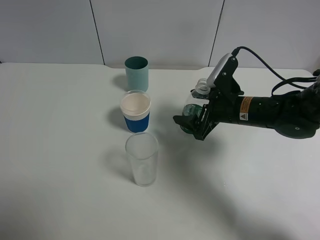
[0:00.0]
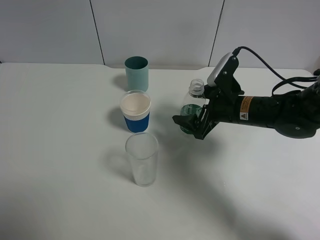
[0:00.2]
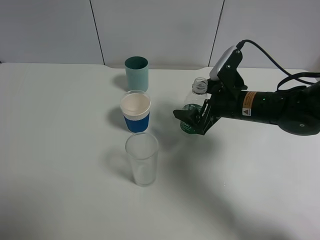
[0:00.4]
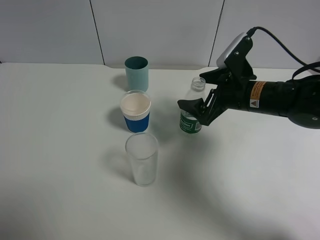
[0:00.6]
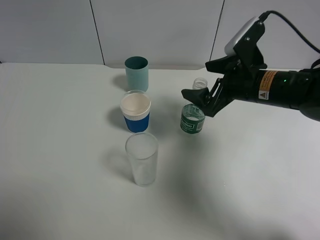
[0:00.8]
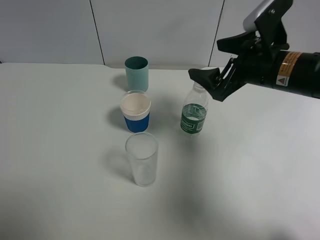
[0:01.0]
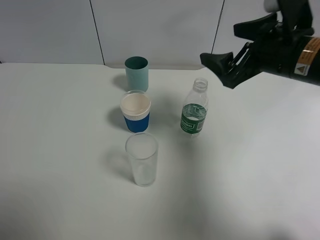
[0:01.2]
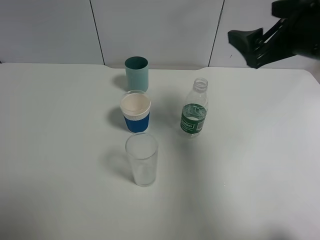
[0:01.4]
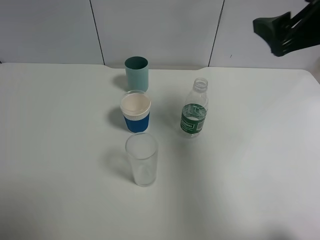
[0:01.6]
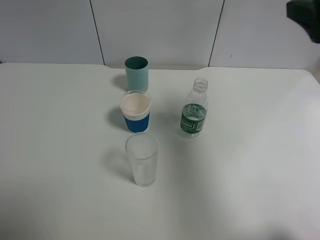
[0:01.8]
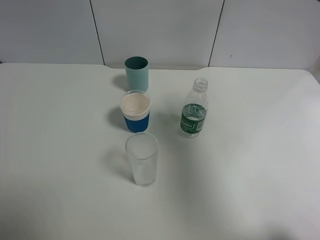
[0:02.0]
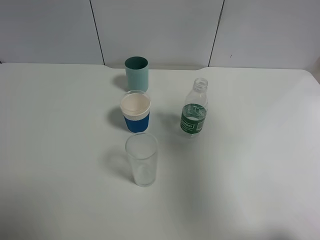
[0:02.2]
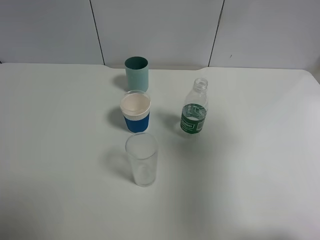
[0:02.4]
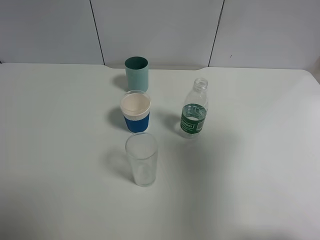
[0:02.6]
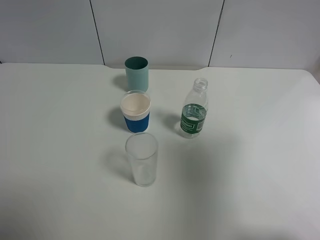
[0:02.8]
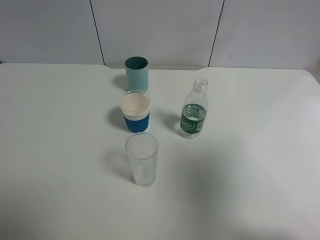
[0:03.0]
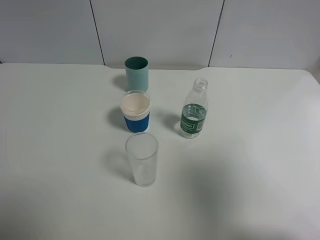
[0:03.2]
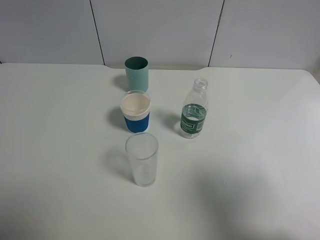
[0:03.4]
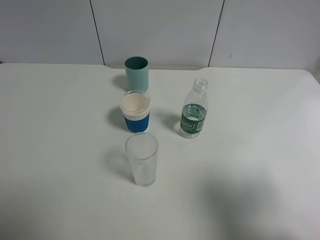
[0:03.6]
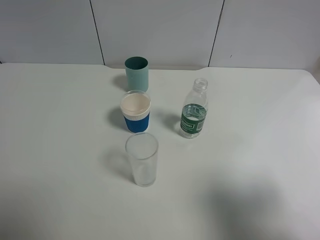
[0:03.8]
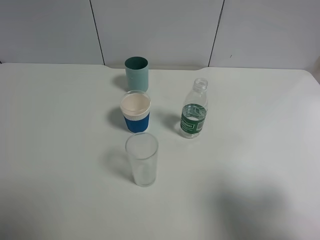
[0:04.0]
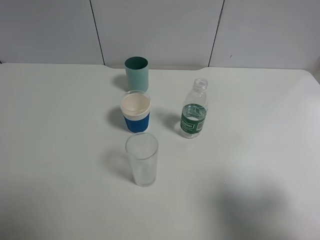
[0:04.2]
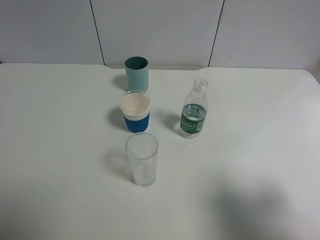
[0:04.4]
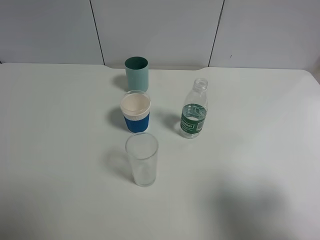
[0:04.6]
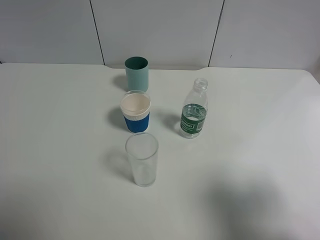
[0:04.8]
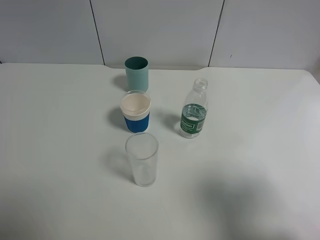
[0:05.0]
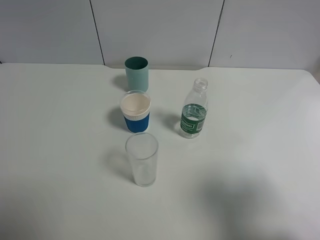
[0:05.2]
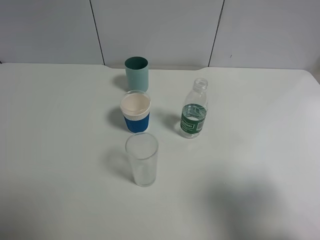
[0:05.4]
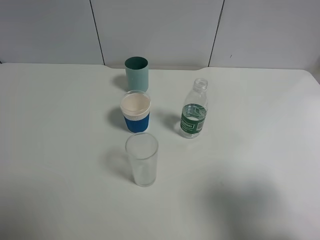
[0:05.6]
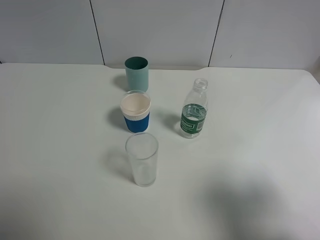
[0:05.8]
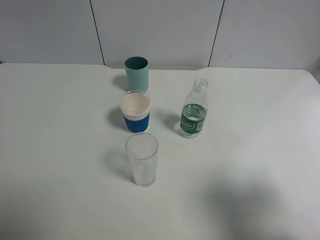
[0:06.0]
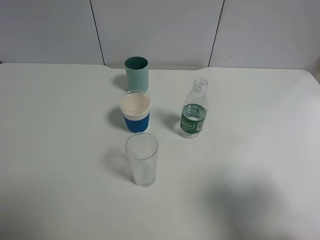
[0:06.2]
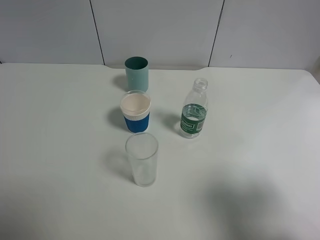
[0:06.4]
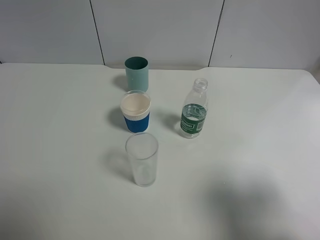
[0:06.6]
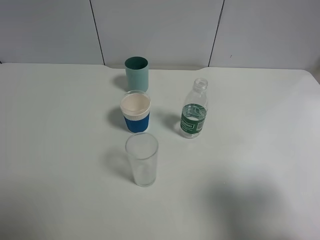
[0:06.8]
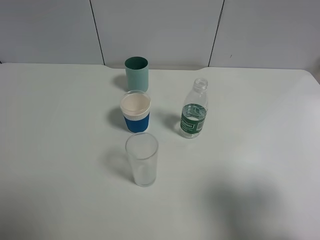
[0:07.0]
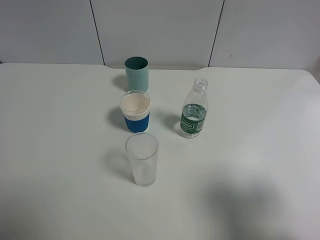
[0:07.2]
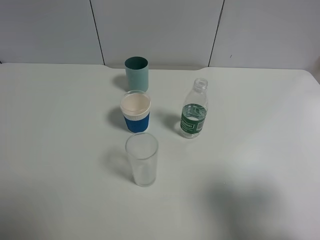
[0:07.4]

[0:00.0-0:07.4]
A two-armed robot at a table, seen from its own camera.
Task of the whole recording: use a gripper to hold the bottle of the drink and pour it into a random cup.
0:00.0 to 0:01.4: The right gripper shifts approximately 20 cm upward.
0:01.4 to 0:03.0: The right gripper goes about 20 cm backward.
0:03.0 to 0:04.4: The right gripper shifts approximately 10 cm downward.
0:06.0 to 0:07.4: The two grippers keep their place.

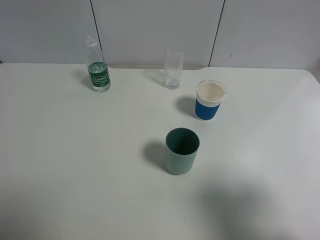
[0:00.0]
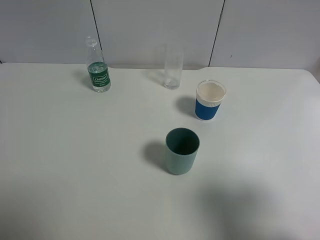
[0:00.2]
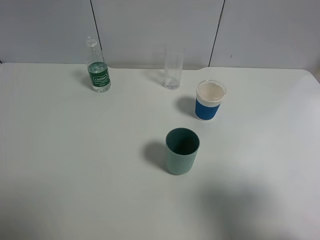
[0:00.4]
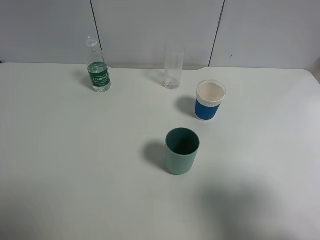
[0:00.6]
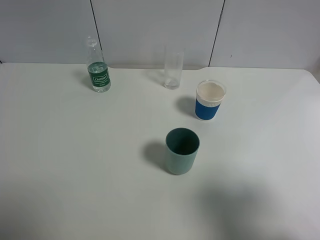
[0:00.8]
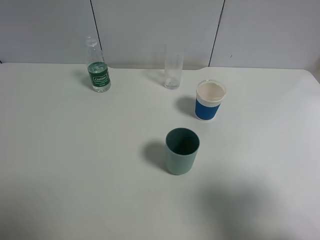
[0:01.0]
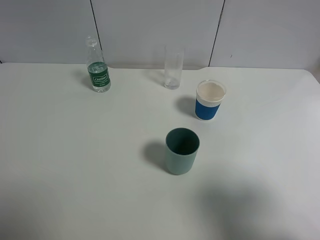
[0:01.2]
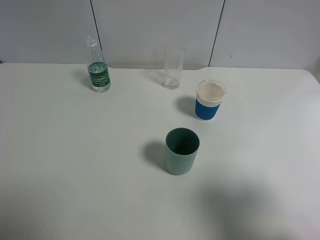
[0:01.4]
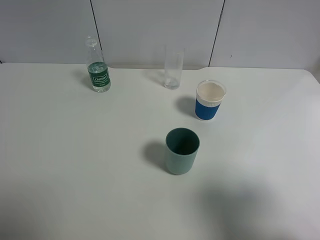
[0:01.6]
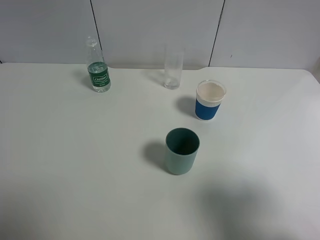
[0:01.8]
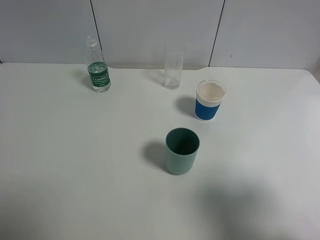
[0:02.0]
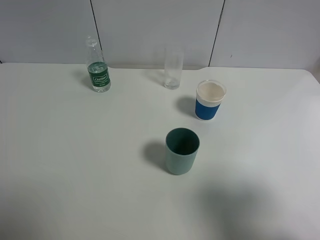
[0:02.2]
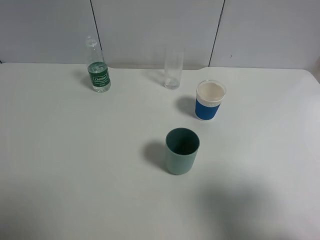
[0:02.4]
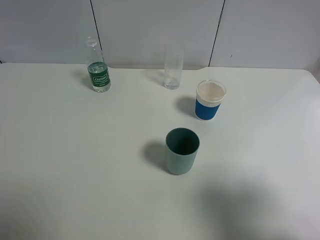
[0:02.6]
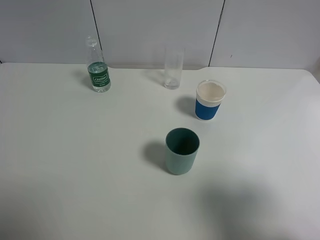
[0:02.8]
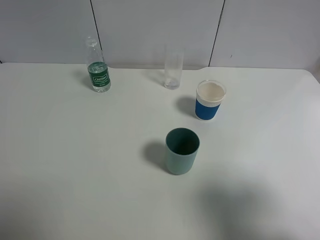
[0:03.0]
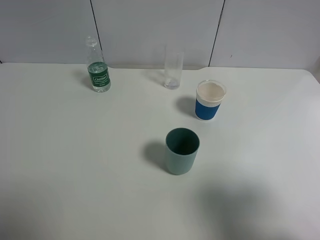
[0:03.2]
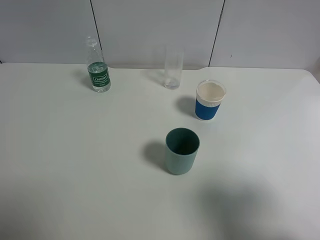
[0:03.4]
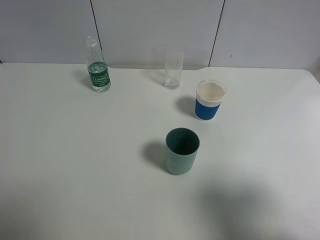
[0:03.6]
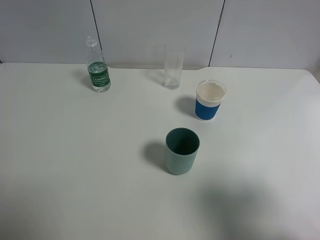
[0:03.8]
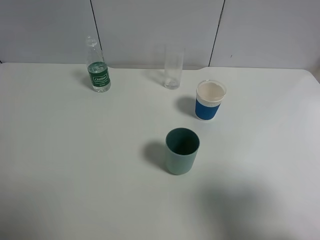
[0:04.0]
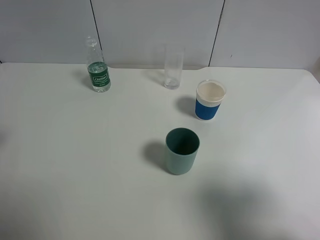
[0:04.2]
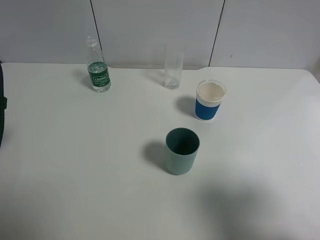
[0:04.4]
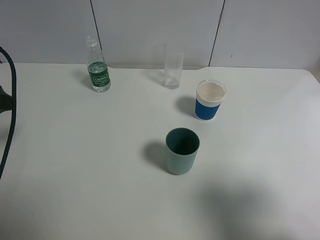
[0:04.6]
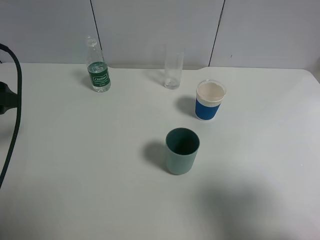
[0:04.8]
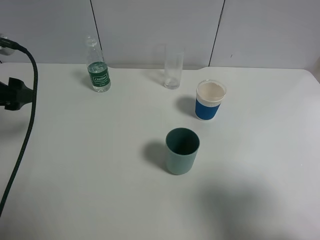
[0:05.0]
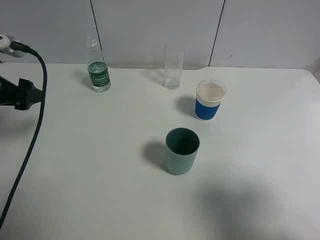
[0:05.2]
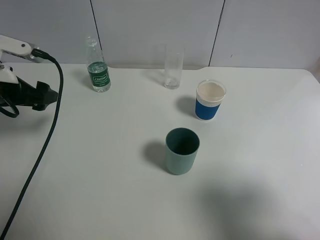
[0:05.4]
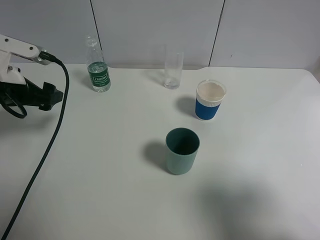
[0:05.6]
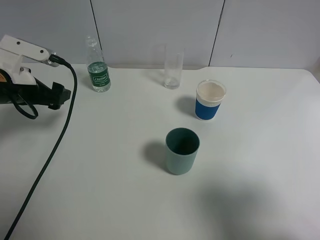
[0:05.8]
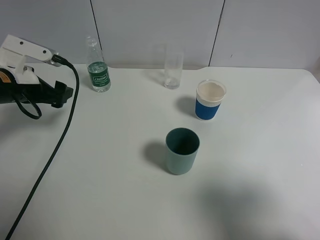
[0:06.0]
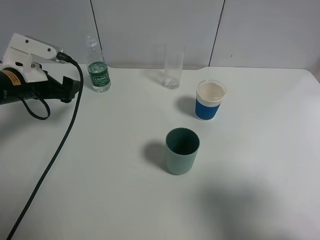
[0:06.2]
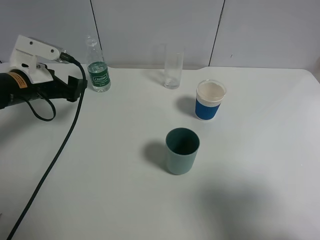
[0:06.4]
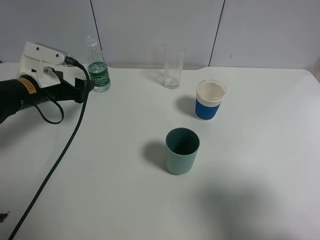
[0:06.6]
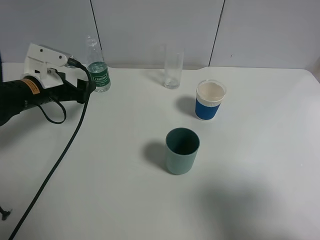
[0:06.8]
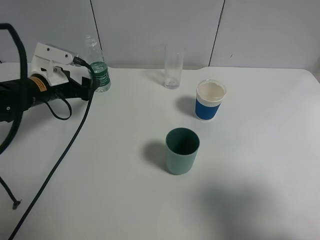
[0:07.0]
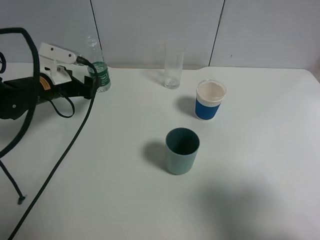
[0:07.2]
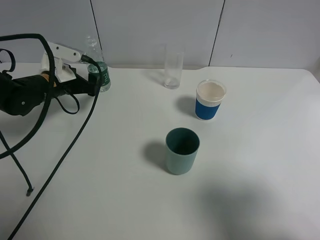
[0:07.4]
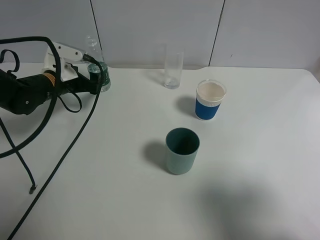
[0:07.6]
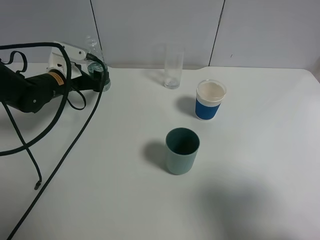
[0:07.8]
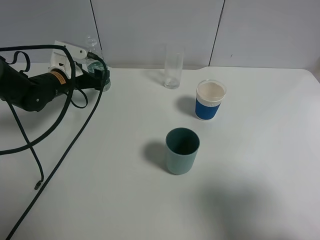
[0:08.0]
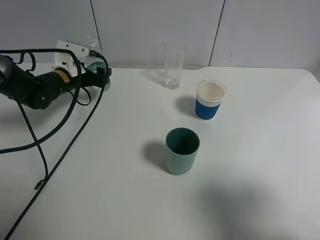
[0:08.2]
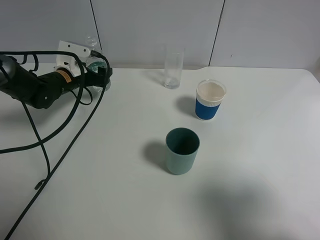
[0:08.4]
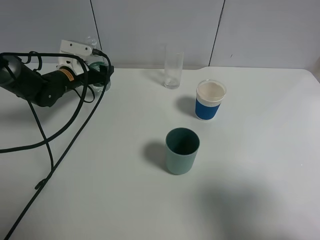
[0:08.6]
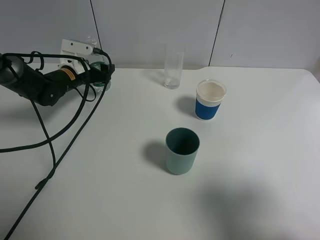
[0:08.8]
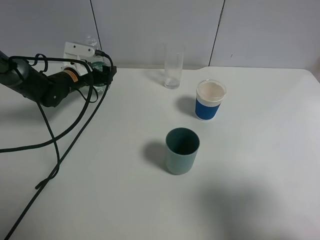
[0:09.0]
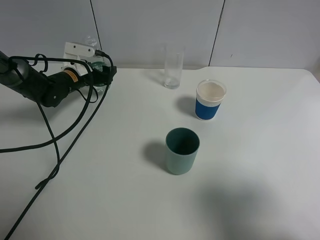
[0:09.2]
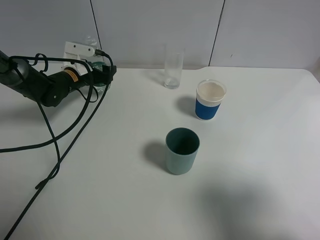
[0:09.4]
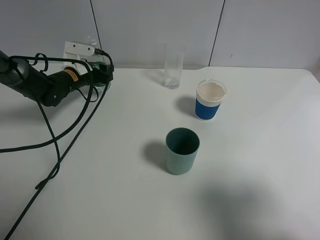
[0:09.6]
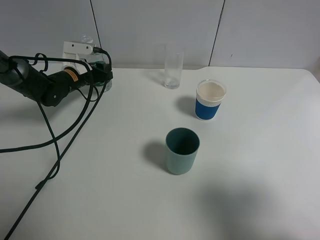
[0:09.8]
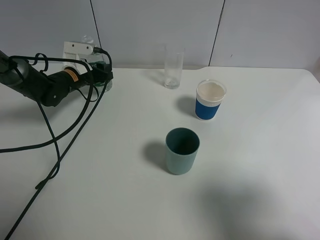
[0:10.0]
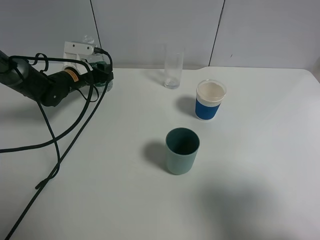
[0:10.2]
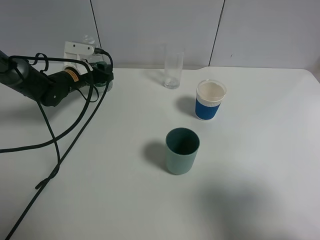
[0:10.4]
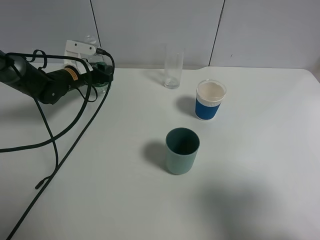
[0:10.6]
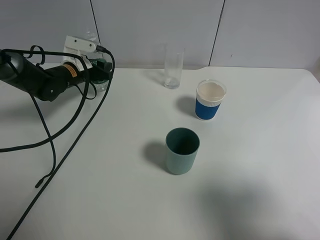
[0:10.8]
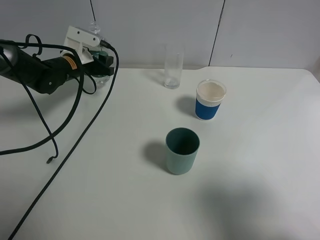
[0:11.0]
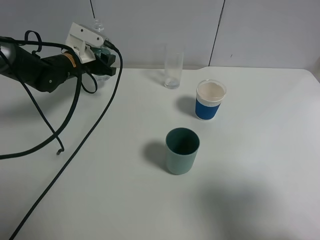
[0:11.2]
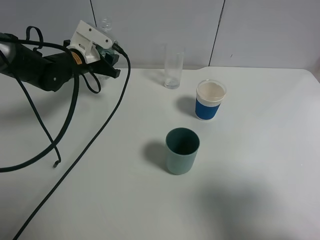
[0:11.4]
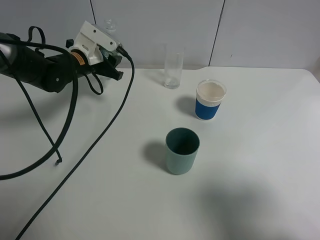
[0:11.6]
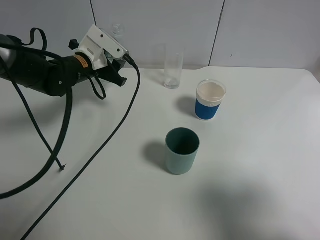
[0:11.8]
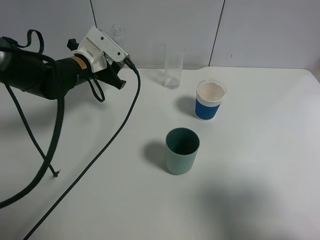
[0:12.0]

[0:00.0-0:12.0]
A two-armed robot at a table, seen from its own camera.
Task of the whole recording: use a gripper to hold the bottle of the drink and pour it into a random cup.
Step, 0:00.0 to 0:09.6: Grasp the mineral water bottle with the left gripper.
0:00.0 to 0:03.0: Both grippers stay put.
0:04.4 to 0:06.0: The left gripper heads forward, downward and to the right, covering approximately 15 cm.
0:06.0 to 0:07.6: The left gripper travels forward and downward by roughly 10 cm.
0:07.6 to 0:09.0: The left gripper shifts roughly 5 cm forward.
0:09.0 to 0:10.4: The left gripper closes up.
0:10.4 to 0:12.0: The left gripper is displaced upward, backward and to the right by about 10 cm.

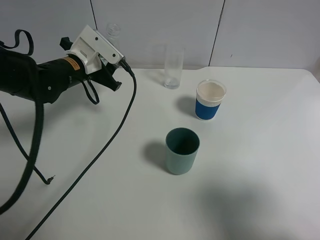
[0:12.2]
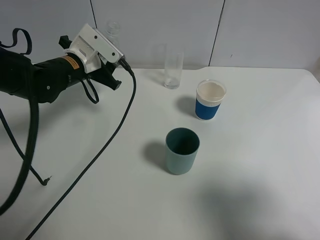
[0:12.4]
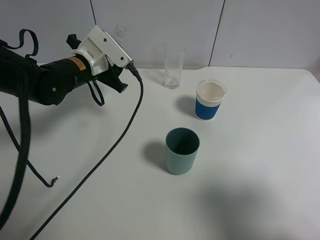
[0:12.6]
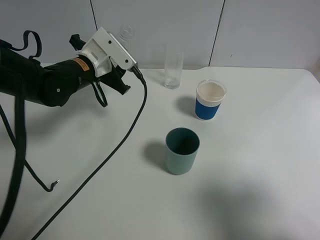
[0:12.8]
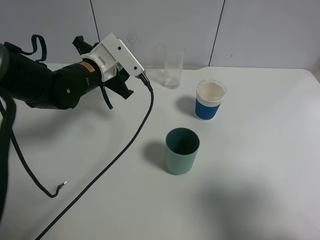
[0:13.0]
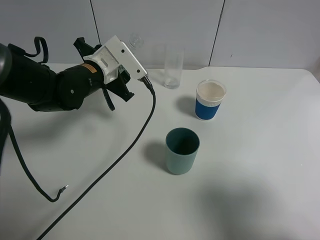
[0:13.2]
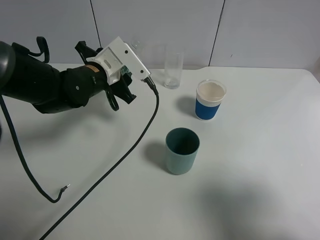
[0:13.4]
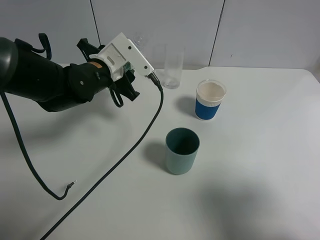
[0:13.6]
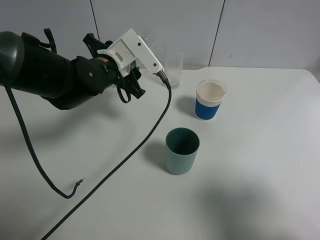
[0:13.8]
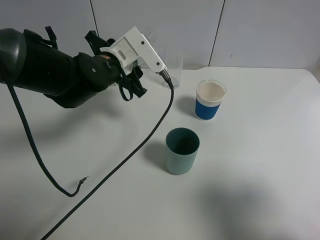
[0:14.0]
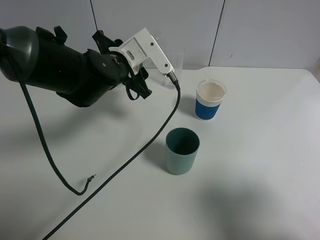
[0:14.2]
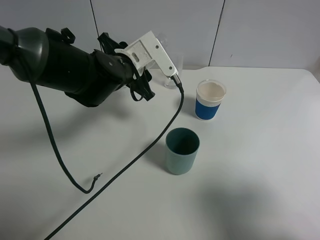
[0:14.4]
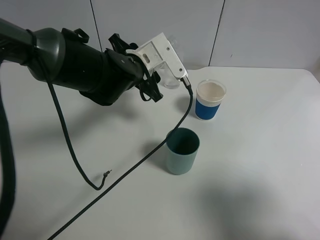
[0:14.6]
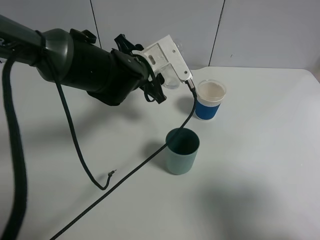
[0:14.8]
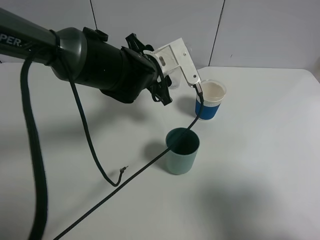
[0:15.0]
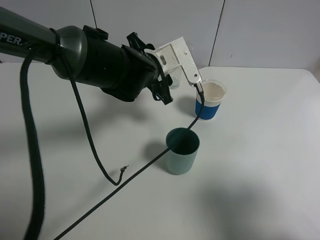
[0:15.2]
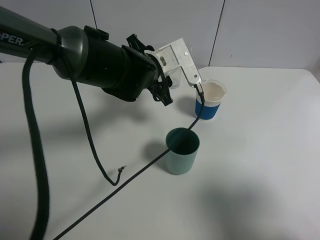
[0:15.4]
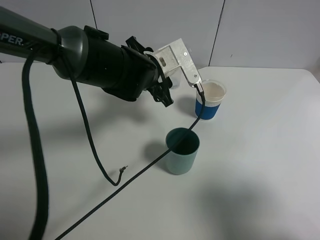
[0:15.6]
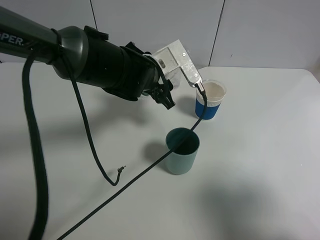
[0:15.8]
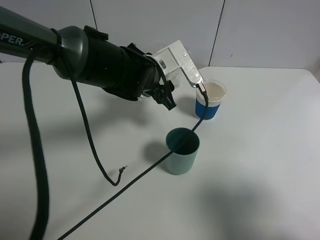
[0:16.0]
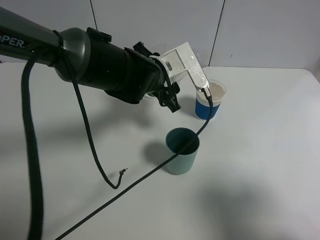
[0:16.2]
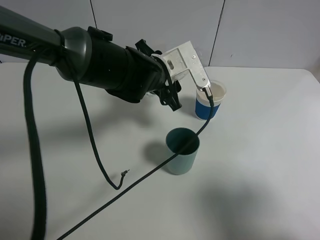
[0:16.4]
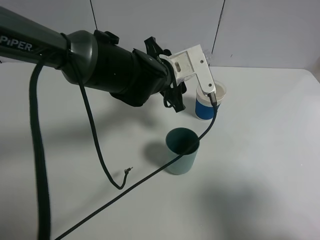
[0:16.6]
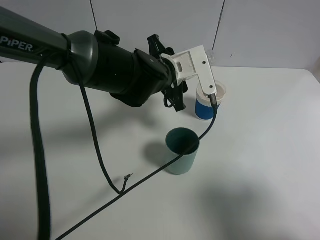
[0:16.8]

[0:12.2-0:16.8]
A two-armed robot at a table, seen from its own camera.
Task of the whole recording: use a gripper to hold the bottle of the drink and pour it into a random cup.
0:12.2 to 0:13.8: The left gripper travels to the right by approximately 5 cm.
0:13.8 to 0:15.2: The left gripper shifts some 5 cm to the right.
0:15.2 to 0:16.8: The grippers move only a little.
